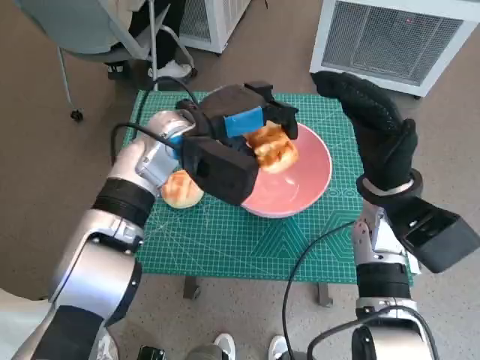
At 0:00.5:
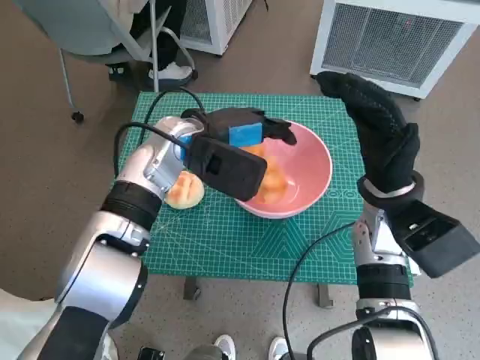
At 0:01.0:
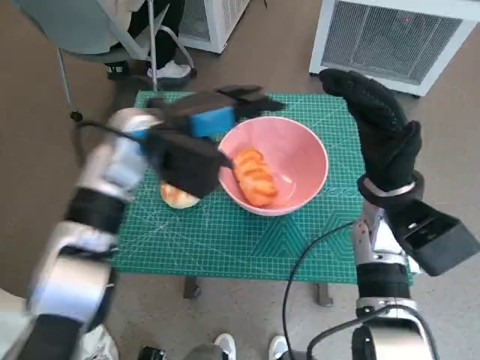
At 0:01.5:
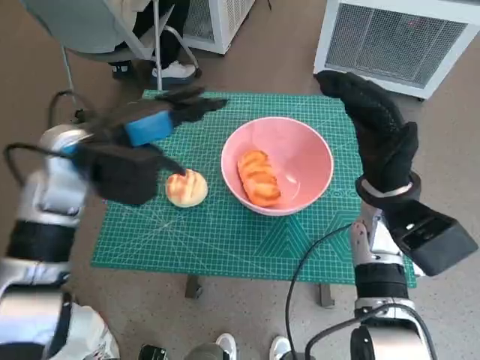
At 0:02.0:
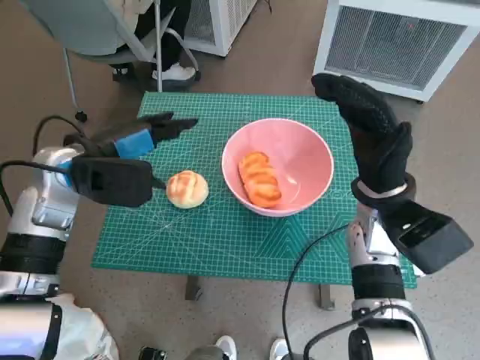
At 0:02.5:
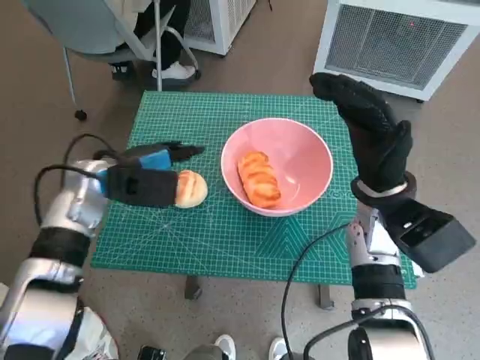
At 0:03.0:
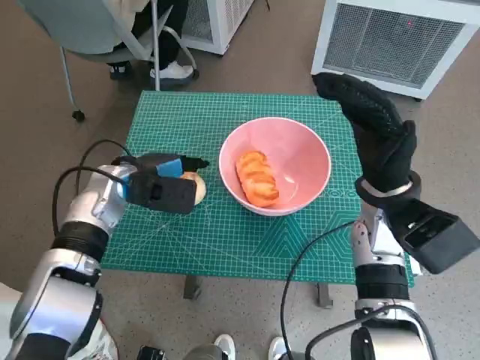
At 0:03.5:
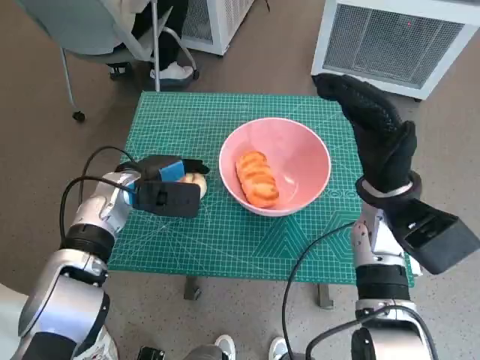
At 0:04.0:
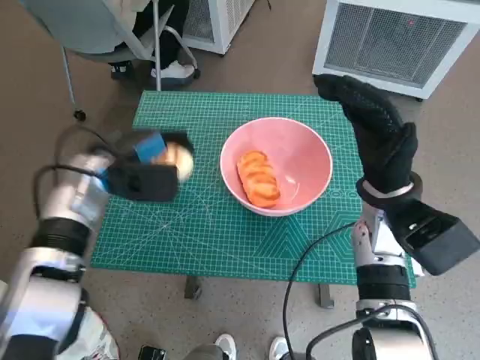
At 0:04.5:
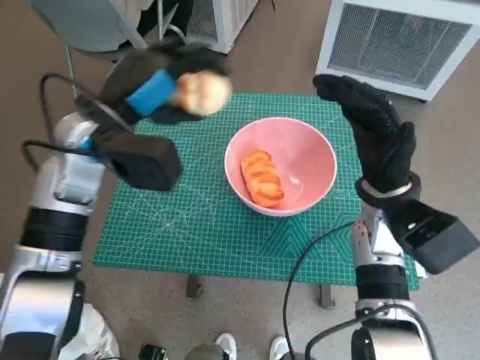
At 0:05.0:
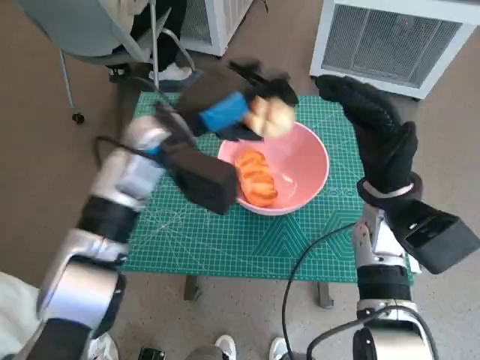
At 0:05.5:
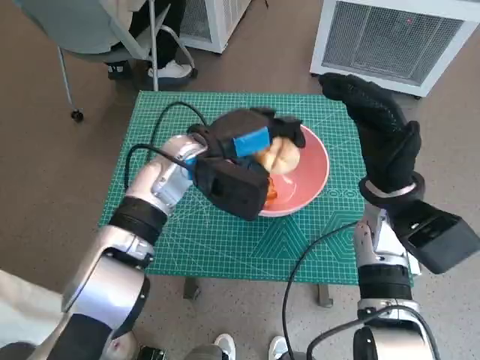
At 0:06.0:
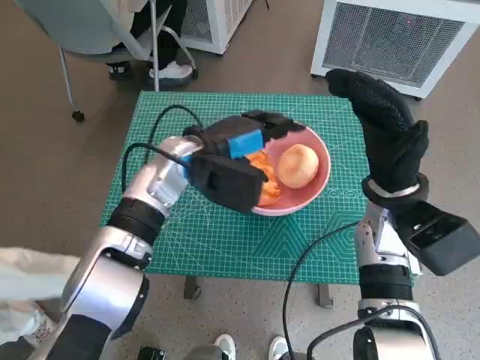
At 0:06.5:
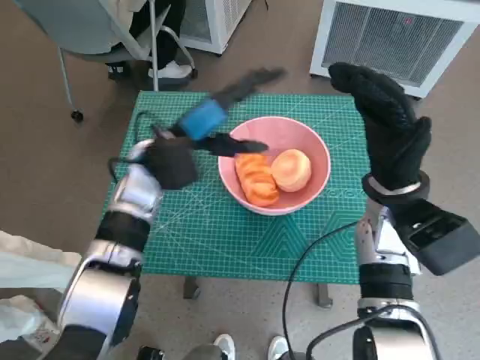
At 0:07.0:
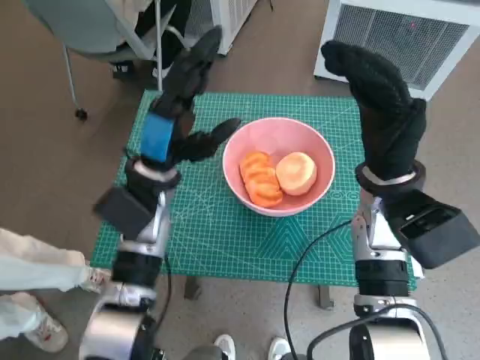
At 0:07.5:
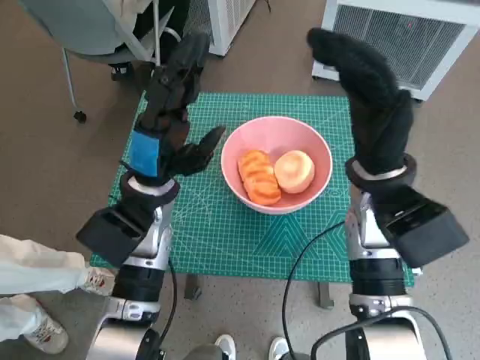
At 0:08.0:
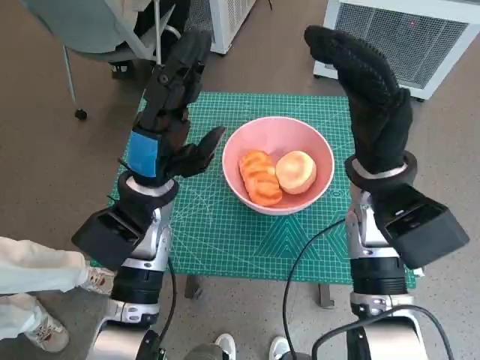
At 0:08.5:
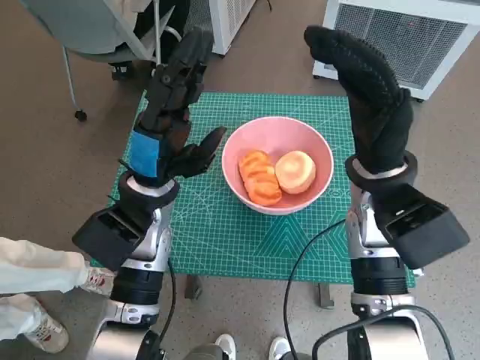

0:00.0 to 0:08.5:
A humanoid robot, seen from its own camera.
Task of the whole recording: Push the bowl to the center of the table and put the bread into the bowl.
Step, 0:01.5 to 0:03.5: Grasp the round bread with left hand.
Step, 0:04.0 to 0:06.0: Place the round bread in pink bowl with left hand.
0:00.0 to 0:02.0: The left hand shifts some 15 cm to the left.
0:02.0 to 0:04.0: The left hand shifts approximately 5 cm downward.
0:04.0 to 0:06.5: The left hand is displaced to the right by about 10 cm.
0:06.5 to 0:08.5: The left hand moves backward, approximately 5 cm.
